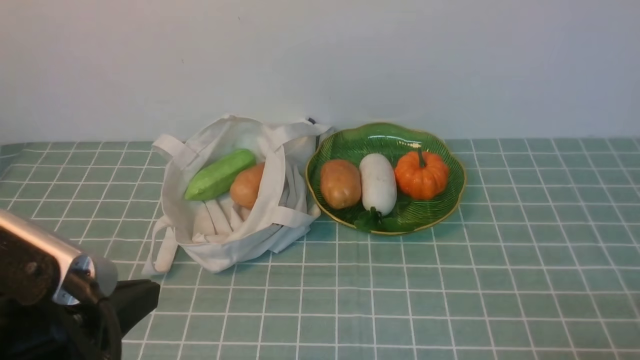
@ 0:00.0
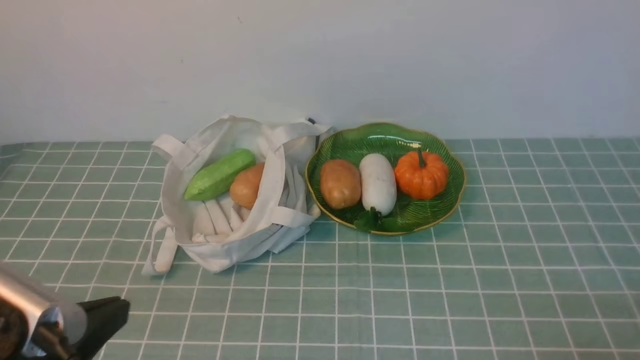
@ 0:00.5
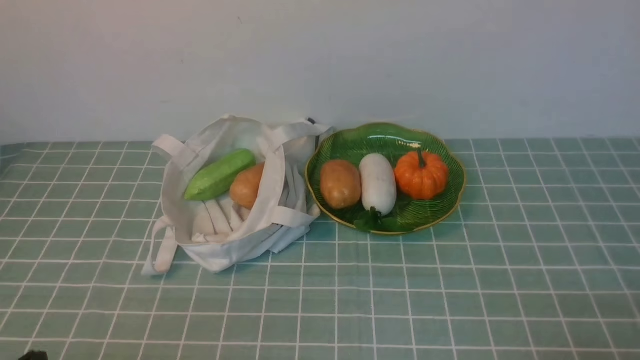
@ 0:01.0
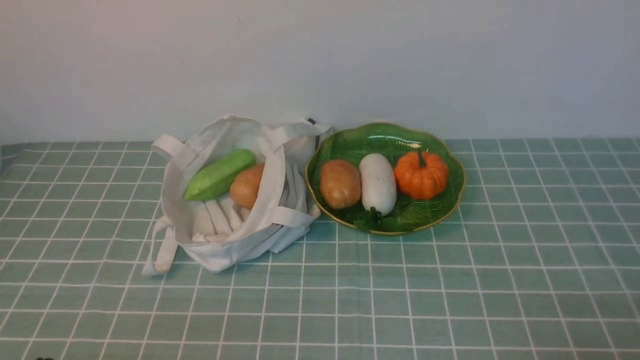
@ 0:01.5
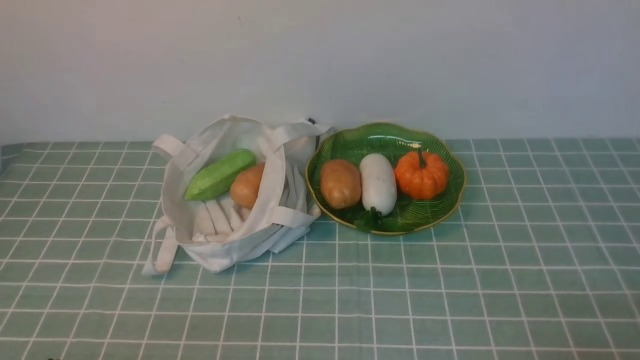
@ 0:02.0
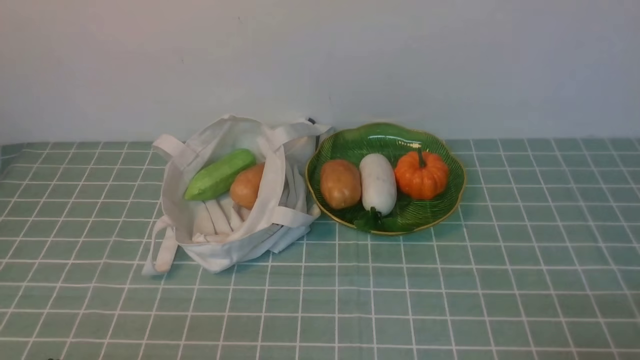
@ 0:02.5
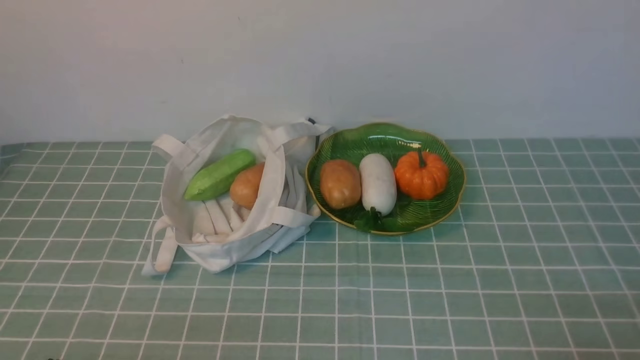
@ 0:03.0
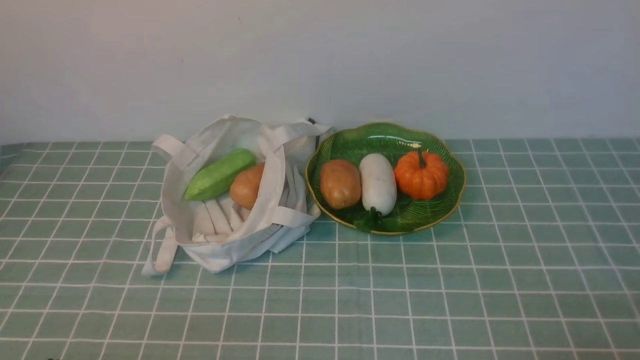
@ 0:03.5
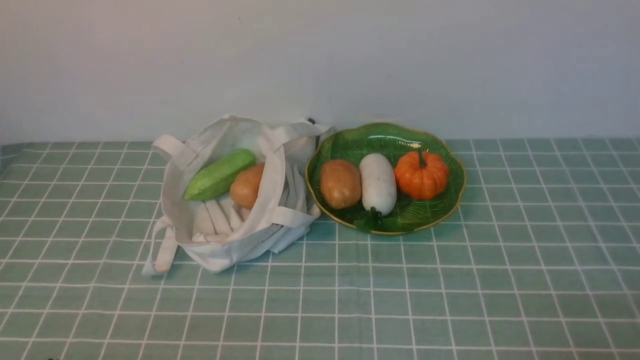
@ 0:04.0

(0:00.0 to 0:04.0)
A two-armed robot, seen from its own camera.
Task of the whole recording: take vegetables from cloth bag on blue coffee tablecloth place on plate.
0:00.0 - 0:02.0: The left gripper heads downward, to the left and backward, covering approximately 15 cm.
0:02.0 - 0:04.0: Both grippers stay about where they are.
